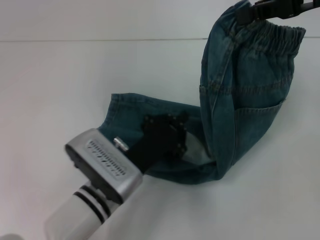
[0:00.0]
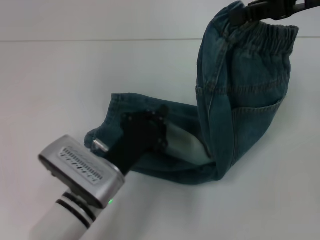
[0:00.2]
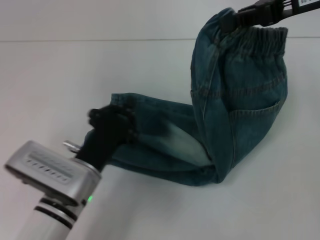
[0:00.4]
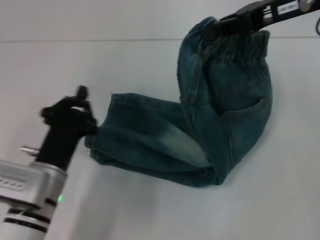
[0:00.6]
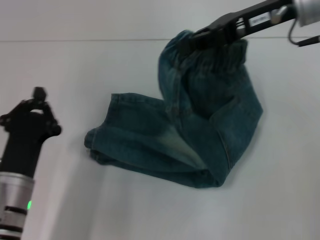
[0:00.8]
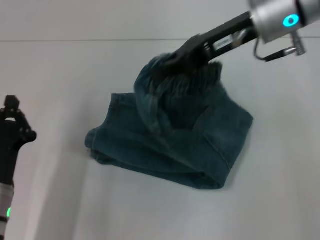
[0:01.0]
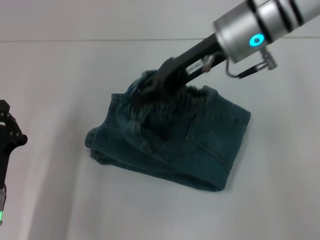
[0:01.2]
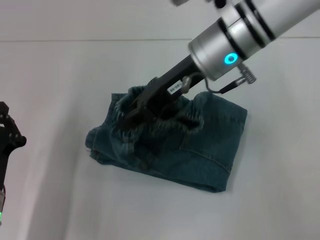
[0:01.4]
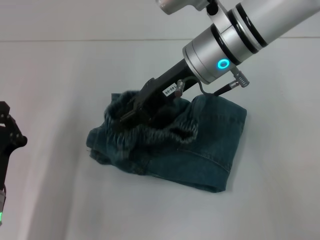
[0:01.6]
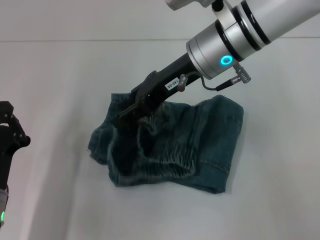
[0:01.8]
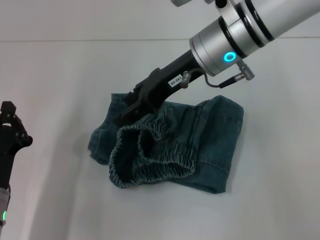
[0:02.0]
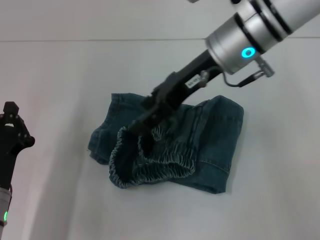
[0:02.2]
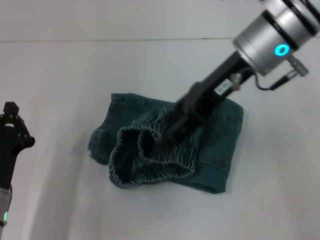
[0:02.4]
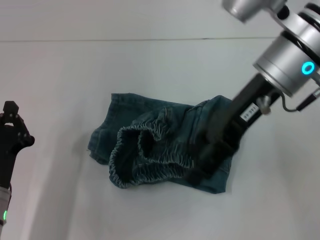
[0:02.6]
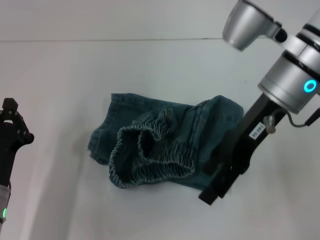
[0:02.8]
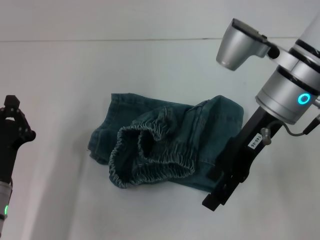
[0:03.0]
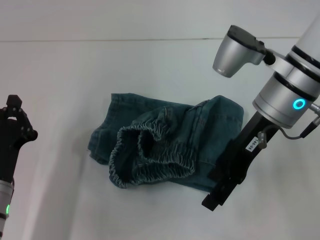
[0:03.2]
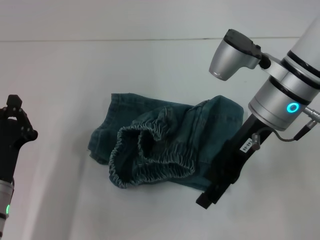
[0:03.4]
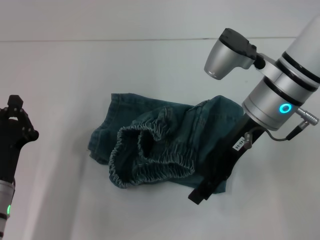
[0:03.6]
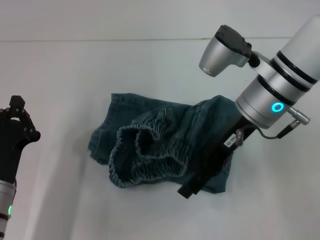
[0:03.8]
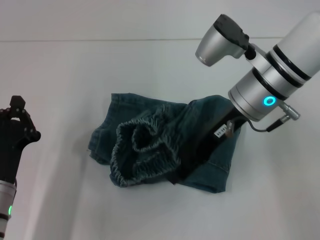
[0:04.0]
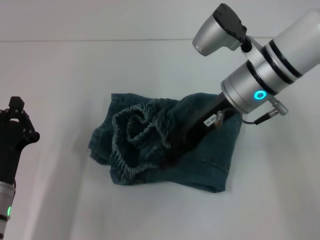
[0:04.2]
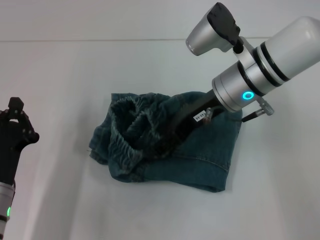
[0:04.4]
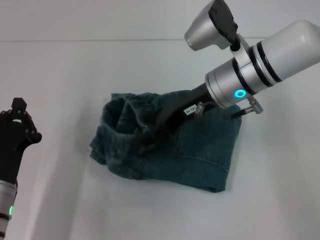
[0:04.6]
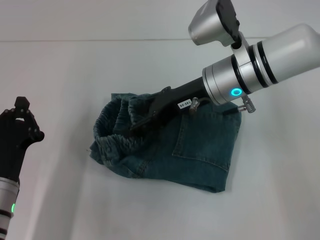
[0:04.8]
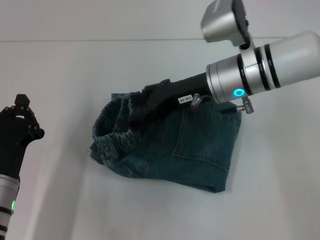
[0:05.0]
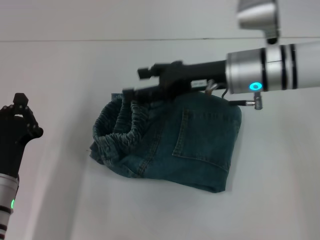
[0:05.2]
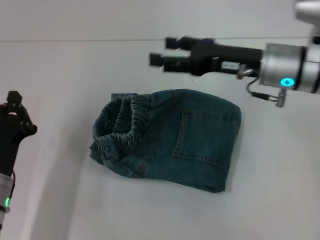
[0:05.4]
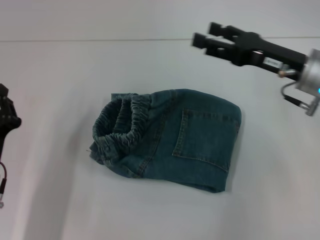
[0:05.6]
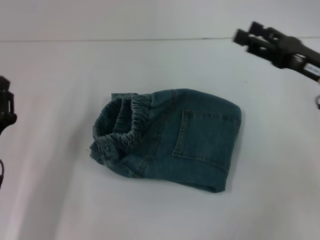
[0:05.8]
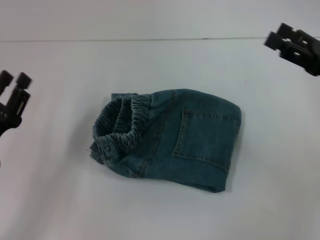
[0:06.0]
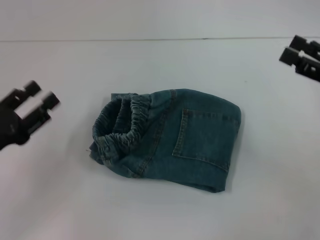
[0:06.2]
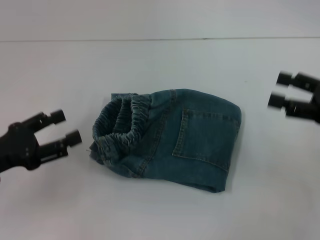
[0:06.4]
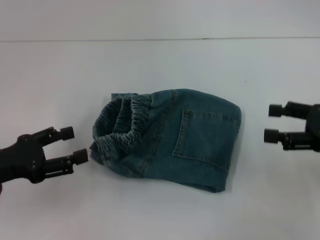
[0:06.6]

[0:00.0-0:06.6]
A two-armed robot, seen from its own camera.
Step, 0:00.0 to 0:02.0: Fold to the left with your right hand.
Step, 0:02.2 to 0:05.0: Adjust the pants with your right hand.
0:00.0 to 0:01.6: The right gripper moves to the left and downward, about 20 cm. The left gripper moves to the left, approximately 15 cm.
0:01.6 to 0:03.2: The right gripper shifts approximately 5 cm to the right, and opens its fingers.
0:03.2 to 0:05.0: The right gripper shifts by some 5 cm.
0:05.0 to 0:06.6: The left gripper moves to the left and upward, approximately 10 cm, and opens. The right gripper is displaced to the right and backward by approximately 25 cm.

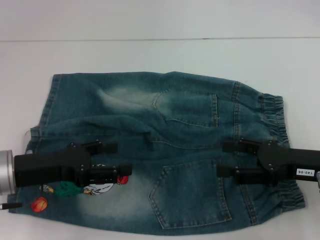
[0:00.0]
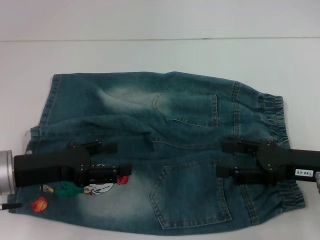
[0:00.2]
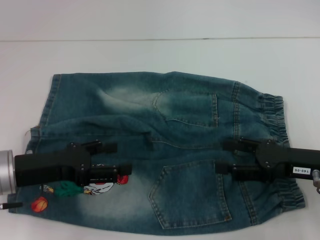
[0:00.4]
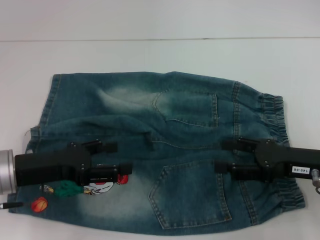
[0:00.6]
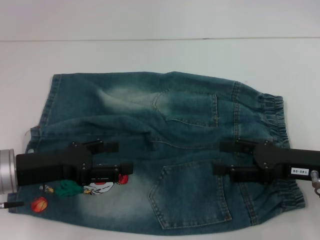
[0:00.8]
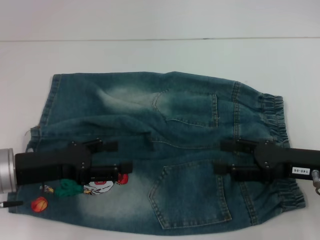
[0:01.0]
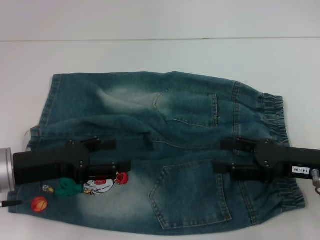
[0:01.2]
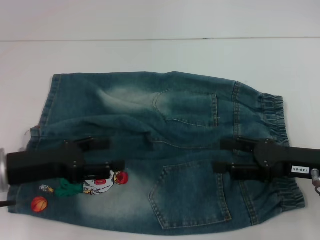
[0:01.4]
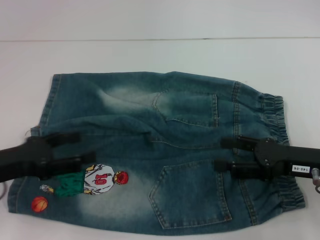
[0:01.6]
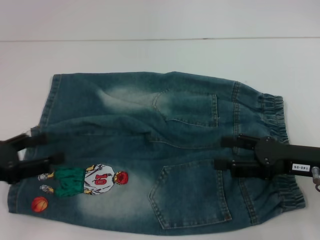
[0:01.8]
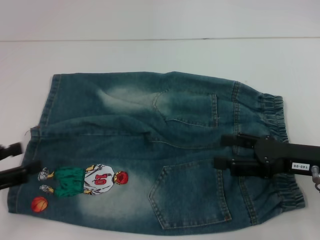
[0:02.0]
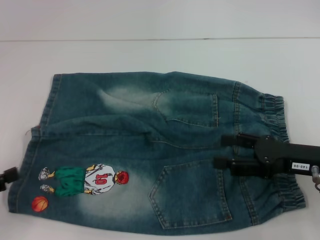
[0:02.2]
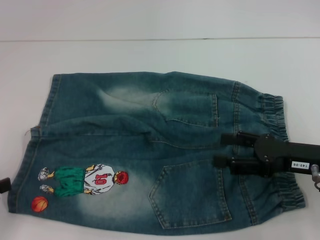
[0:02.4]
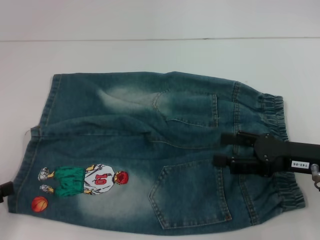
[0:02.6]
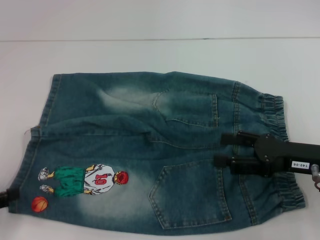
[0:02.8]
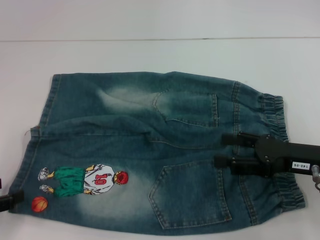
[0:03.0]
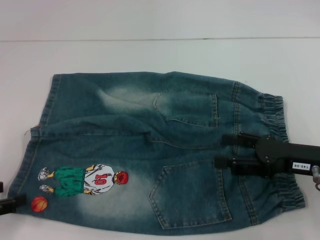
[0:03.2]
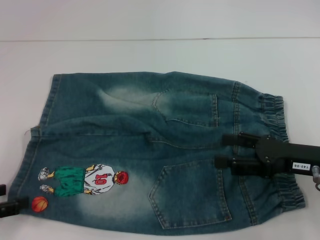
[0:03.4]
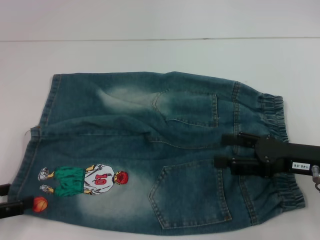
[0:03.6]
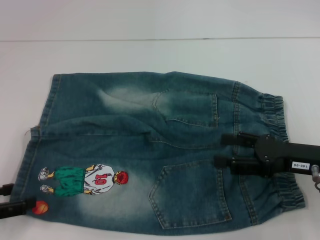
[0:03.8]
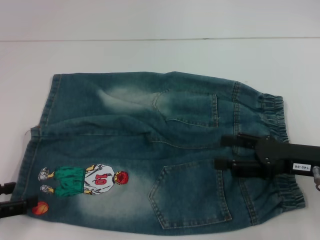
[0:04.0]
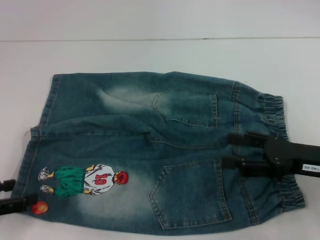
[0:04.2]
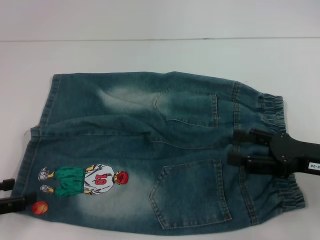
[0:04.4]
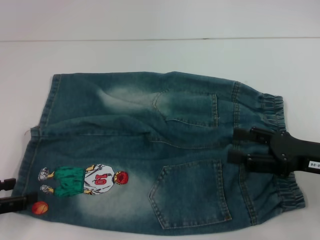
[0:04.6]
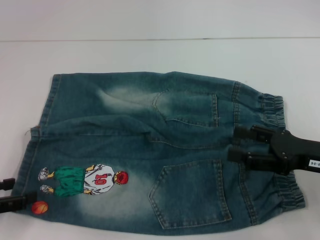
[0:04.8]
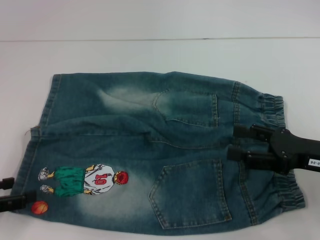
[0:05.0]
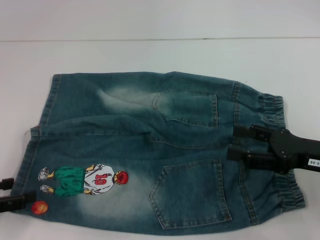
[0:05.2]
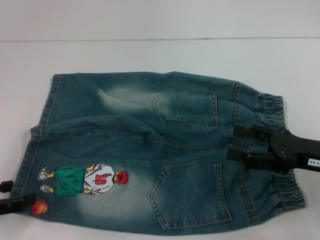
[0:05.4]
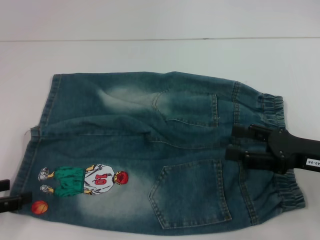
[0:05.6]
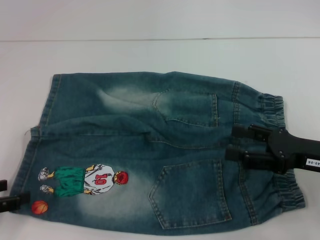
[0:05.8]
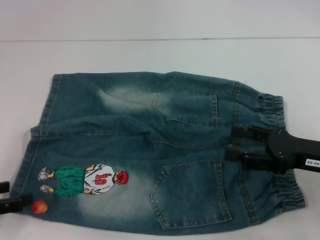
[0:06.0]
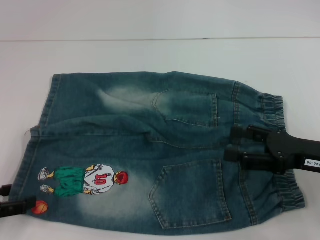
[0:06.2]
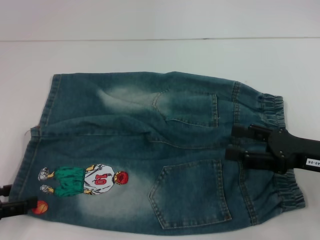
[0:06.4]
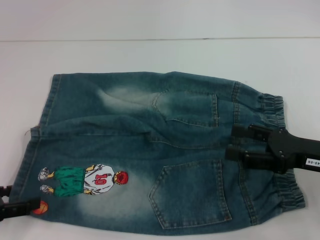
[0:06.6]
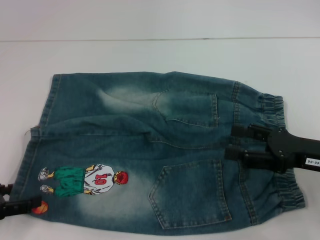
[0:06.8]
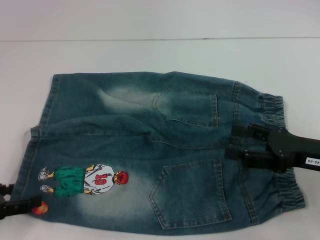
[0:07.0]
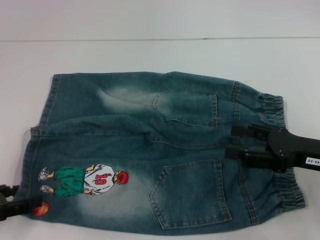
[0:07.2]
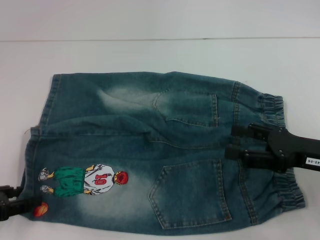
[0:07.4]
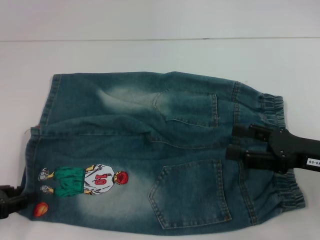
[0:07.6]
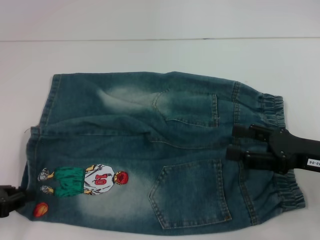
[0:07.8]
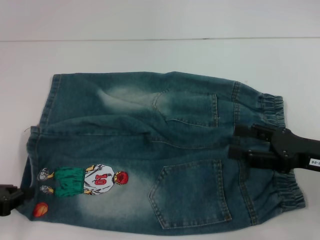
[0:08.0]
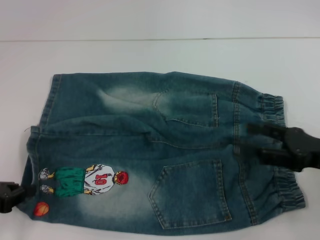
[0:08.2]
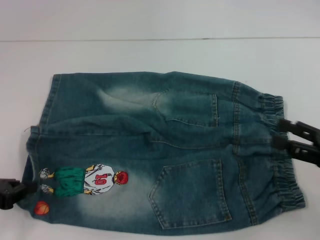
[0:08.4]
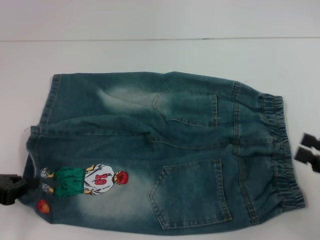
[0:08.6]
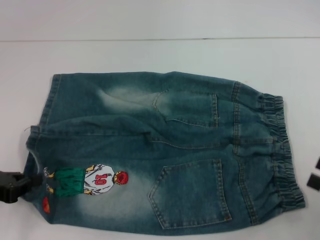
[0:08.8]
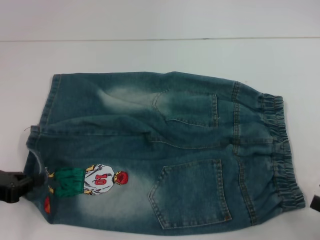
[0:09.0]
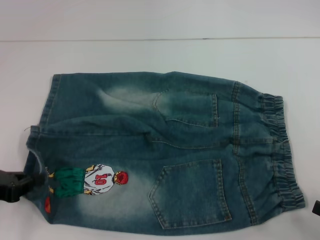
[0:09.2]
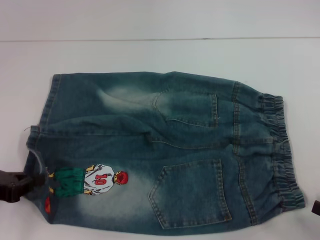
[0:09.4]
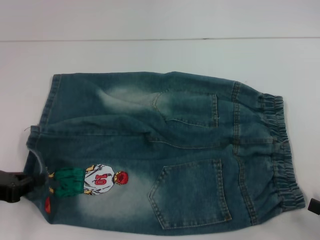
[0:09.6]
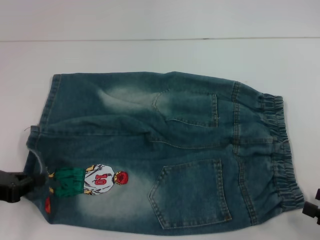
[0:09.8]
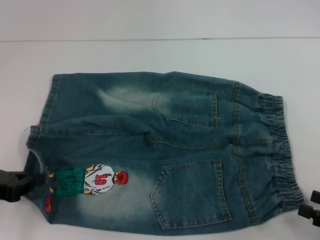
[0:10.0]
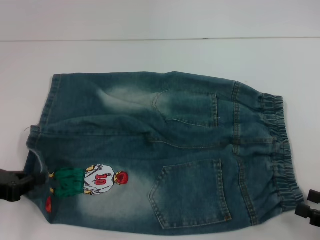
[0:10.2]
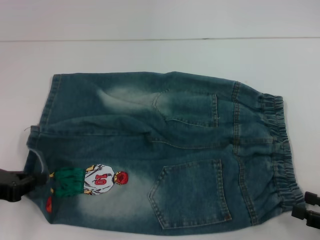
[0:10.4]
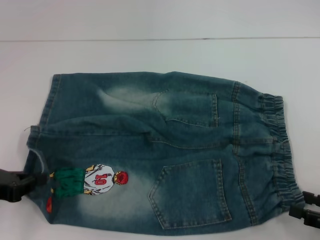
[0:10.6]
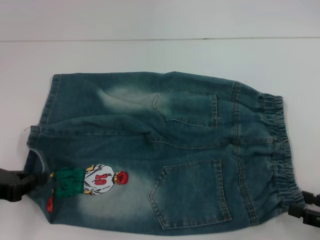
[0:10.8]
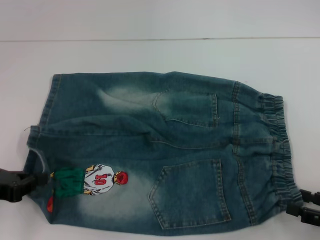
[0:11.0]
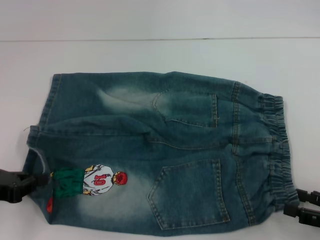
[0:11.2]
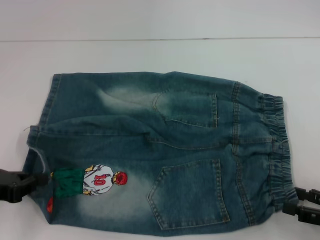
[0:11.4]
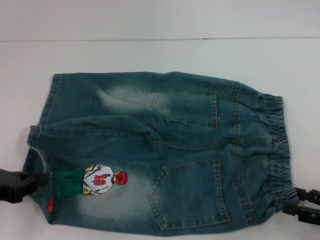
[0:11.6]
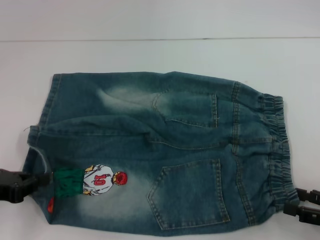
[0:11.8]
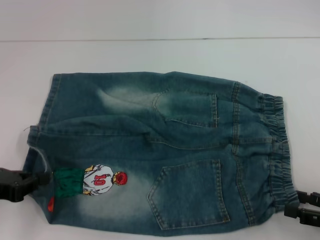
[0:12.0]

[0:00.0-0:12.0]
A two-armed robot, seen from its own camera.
Step, 0:00.0 to 0:07.6: Grab the lower left pant leg with your left hand.
0:00.0 to 0:01.6: The grippers stay close to where they were, moving slightly.
0:01.6 to 0:03.0: The left gripper travels to the left and backward by about 10 cm.
0:03.0 to 0:04.4: There are only small adjustments of the grippers.
0:04.4 to 0:06.0: Both grippers stay put.
0:06.0 to 0:07.6: The left gripper closes.
0:07.6 to 0:09.0: The right gripper goes some 15 cm backward and to the right. Meanwhile the left gripper closes its fingers.
0:09.0 to 0:12.0: The grippers stay close to where they were, moving slightly.

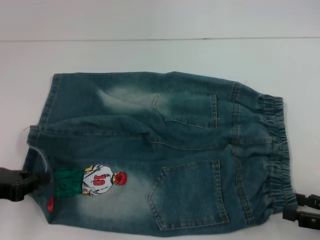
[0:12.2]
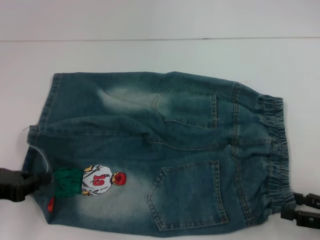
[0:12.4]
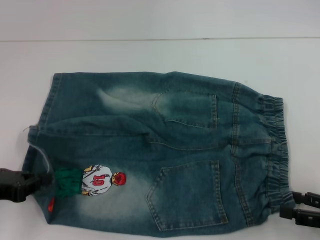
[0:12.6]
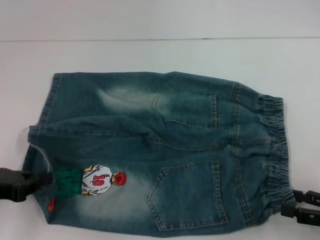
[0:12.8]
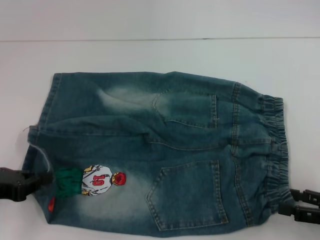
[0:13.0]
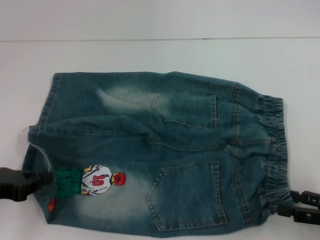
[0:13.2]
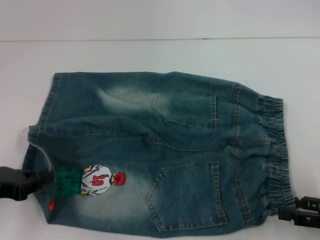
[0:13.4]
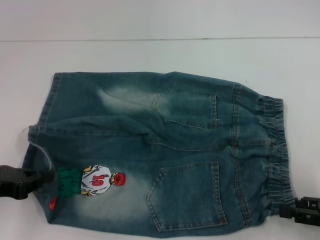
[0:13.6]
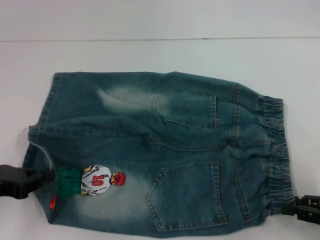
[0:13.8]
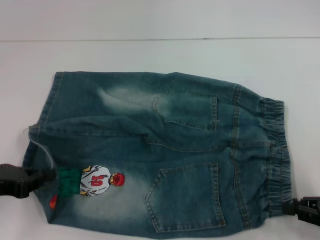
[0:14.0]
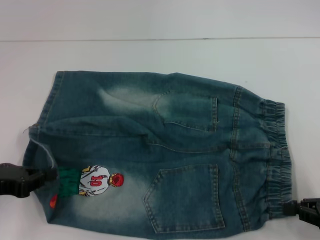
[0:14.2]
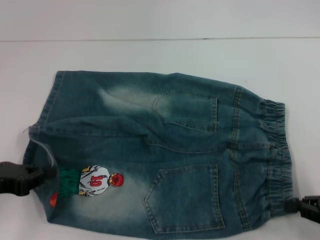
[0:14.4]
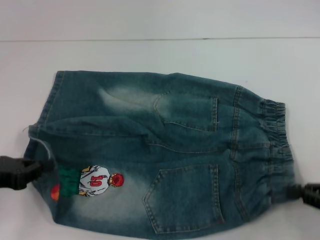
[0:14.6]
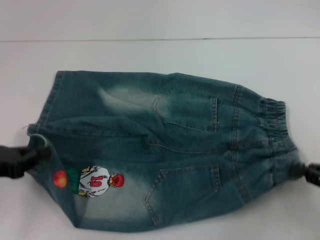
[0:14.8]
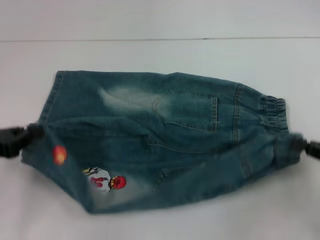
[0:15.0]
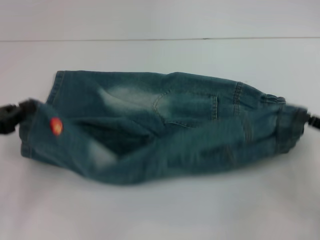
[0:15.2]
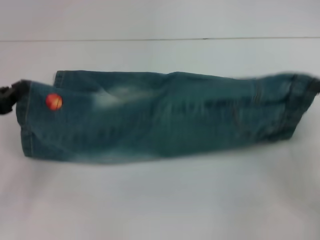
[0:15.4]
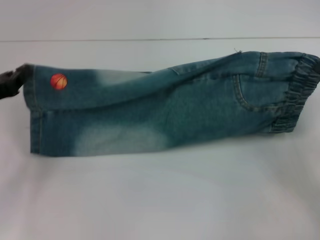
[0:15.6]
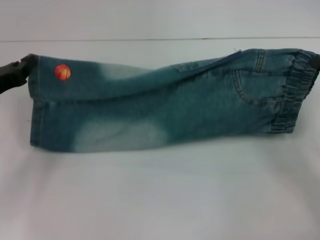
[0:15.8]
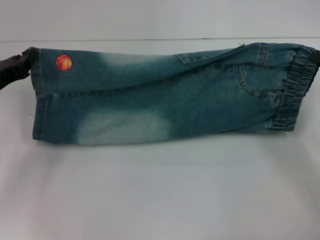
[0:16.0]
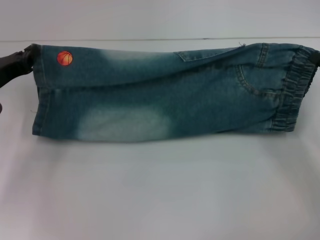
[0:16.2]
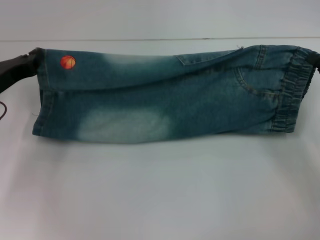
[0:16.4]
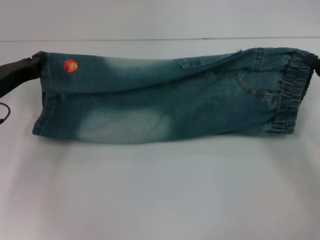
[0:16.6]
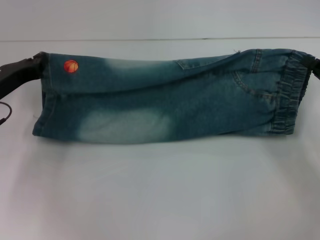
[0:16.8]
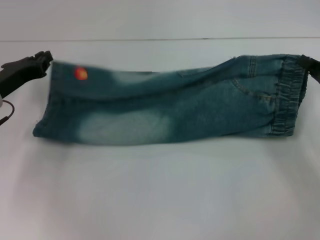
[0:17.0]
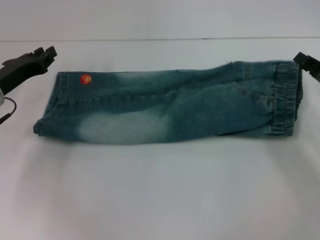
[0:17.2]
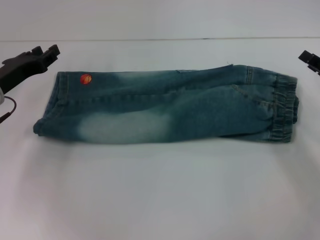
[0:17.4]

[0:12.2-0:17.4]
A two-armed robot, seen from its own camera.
Step, 0:13.8 to 0:17.0: Fold upward with your left hand.
0:12.2 to 0:14.0: The right gripper closes its fingers.
0:14.0 to 0:15.6: Both grippers travel together forward, roughly 5 cm. The right gripper closes.
0:15.6 to 0:17.4: The two grippers go approximately 5 cm forward.
